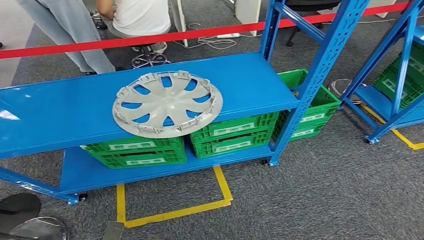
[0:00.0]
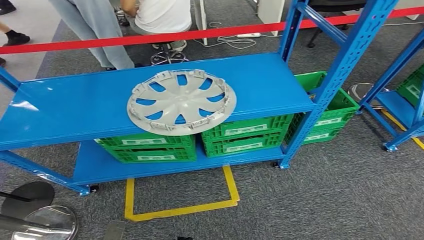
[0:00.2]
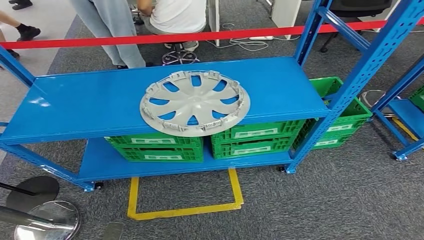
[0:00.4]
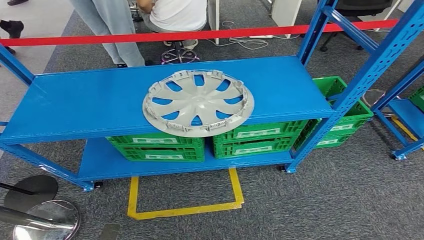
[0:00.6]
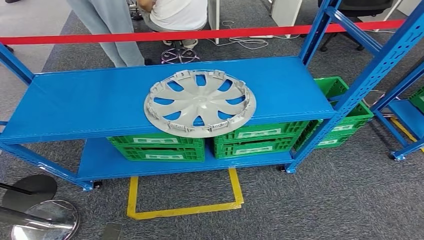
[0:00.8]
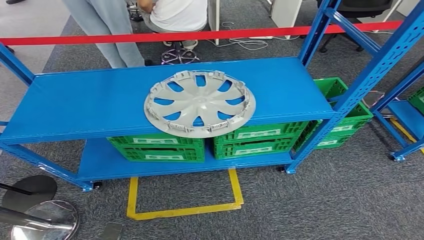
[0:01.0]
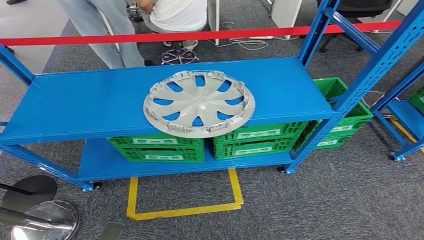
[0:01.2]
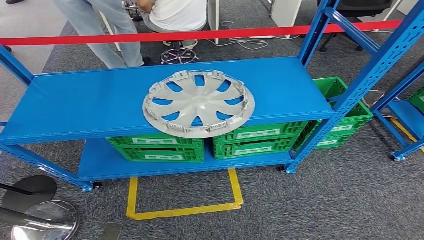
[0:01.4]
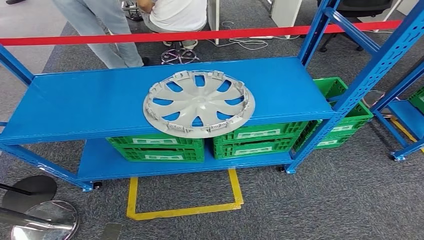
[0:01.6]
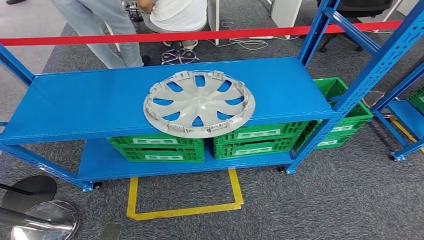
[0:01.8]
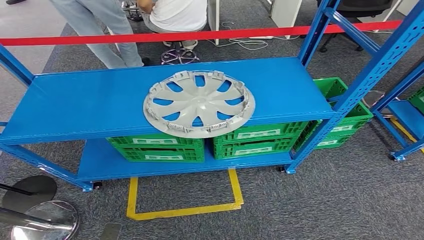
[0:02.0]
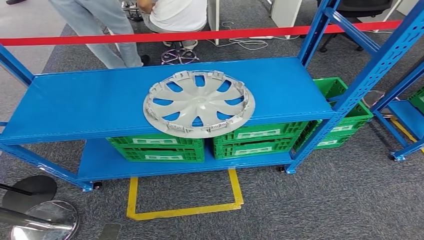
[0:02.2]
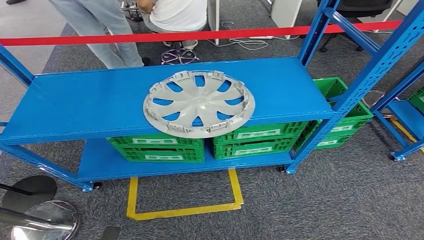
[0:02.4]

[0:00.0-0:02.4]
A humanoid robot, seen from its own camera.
Step, 0:00.0 to 0:02.4: Move to the initial position at the workbench.
0:01.2 to 0:02.4: The two hands keep their place.
